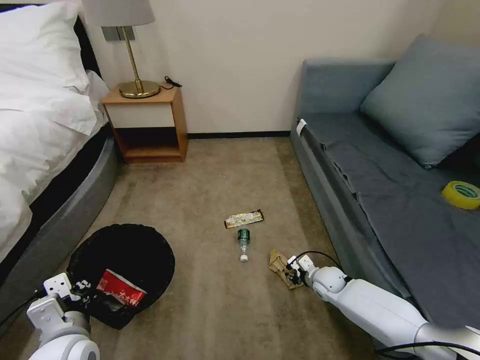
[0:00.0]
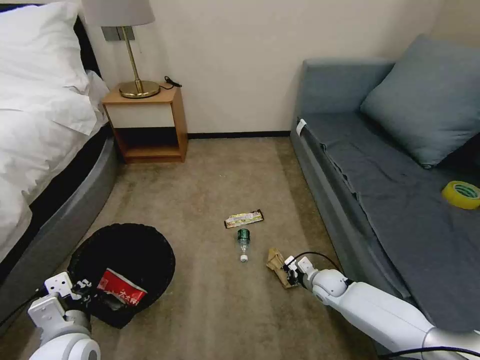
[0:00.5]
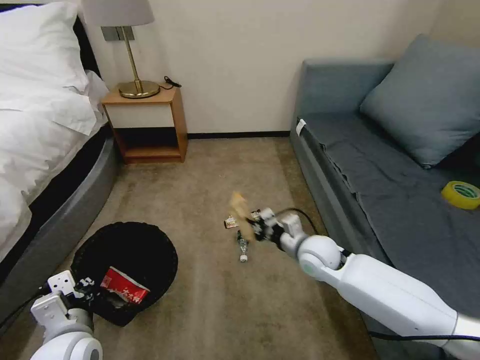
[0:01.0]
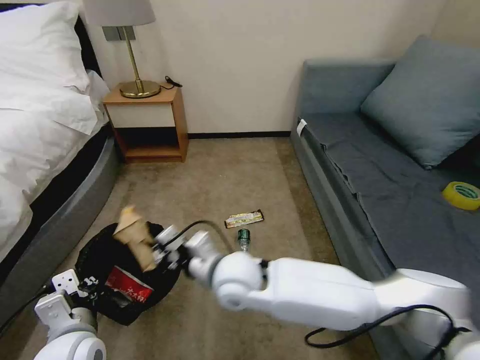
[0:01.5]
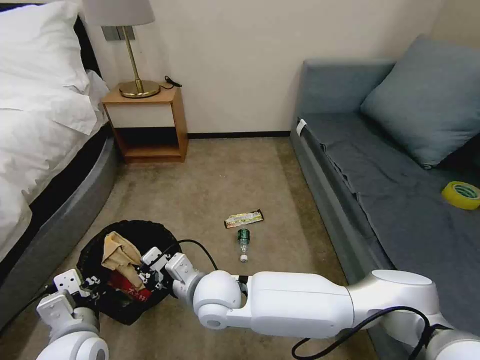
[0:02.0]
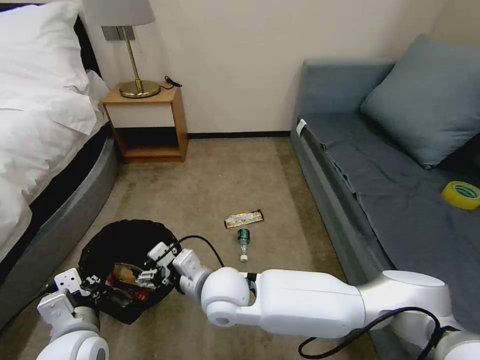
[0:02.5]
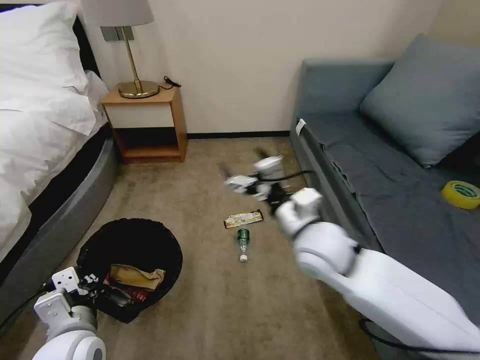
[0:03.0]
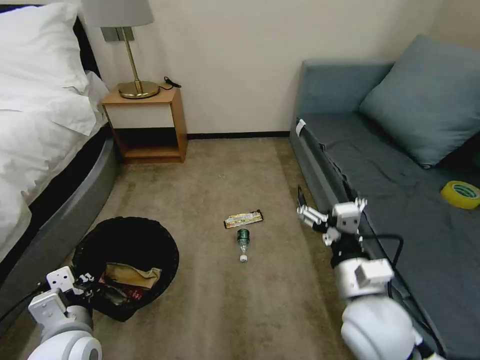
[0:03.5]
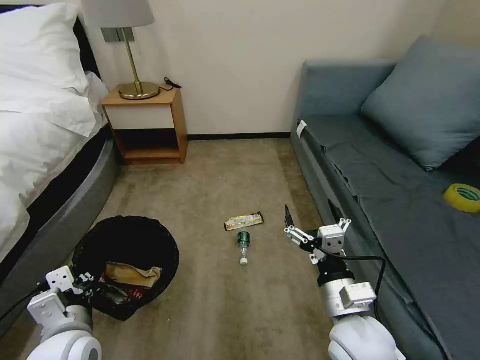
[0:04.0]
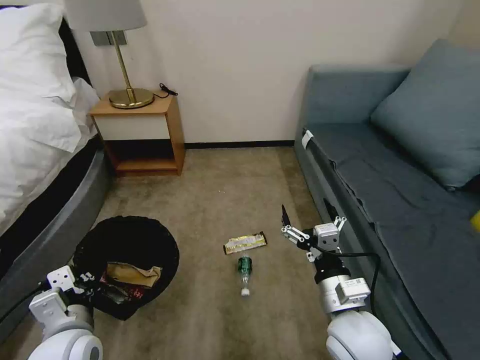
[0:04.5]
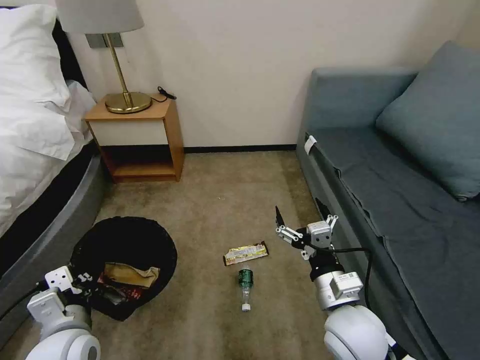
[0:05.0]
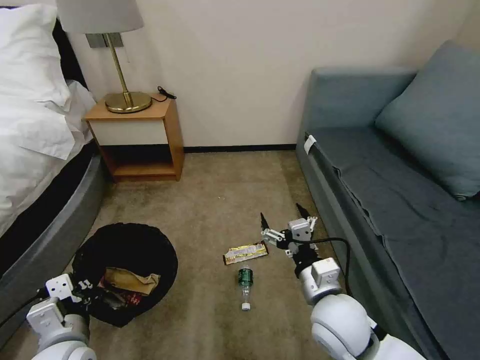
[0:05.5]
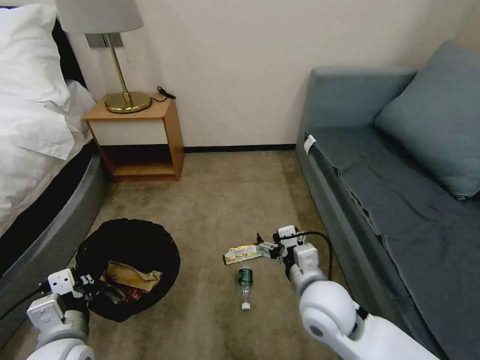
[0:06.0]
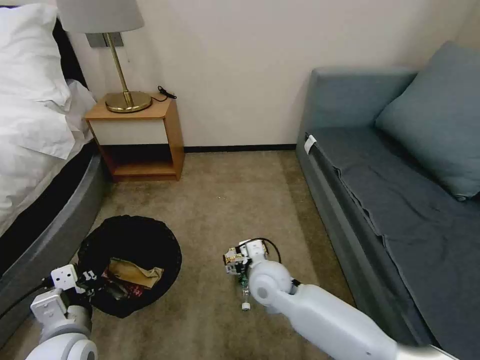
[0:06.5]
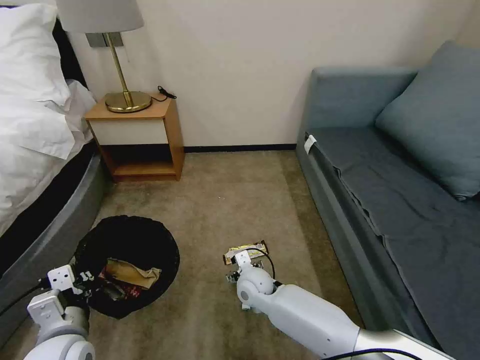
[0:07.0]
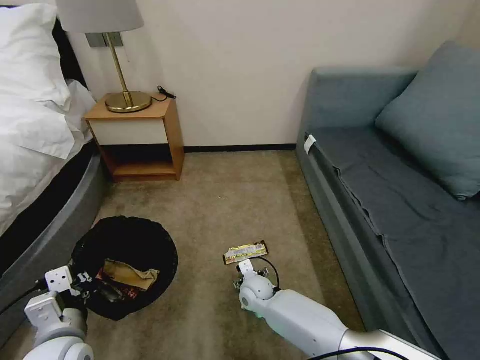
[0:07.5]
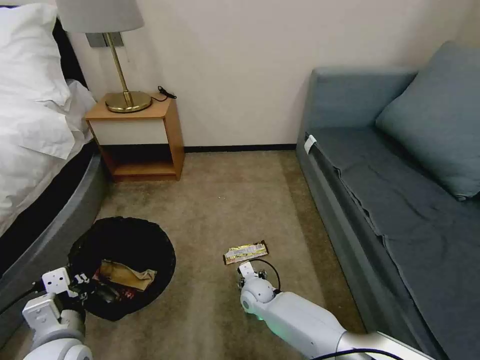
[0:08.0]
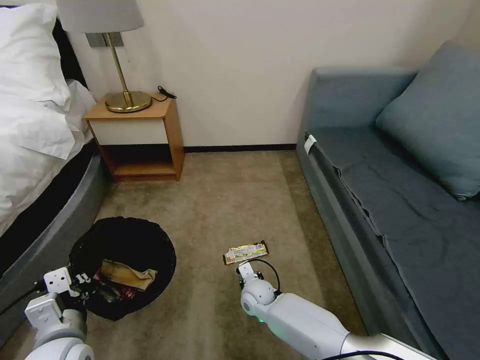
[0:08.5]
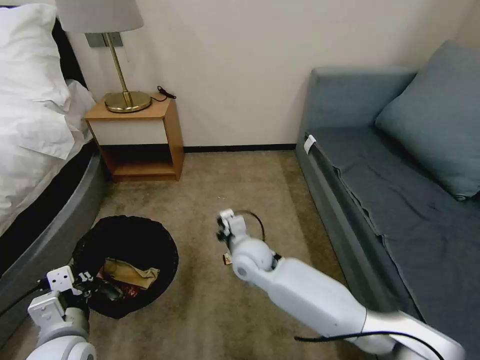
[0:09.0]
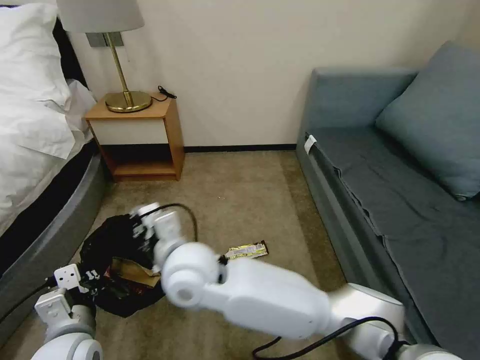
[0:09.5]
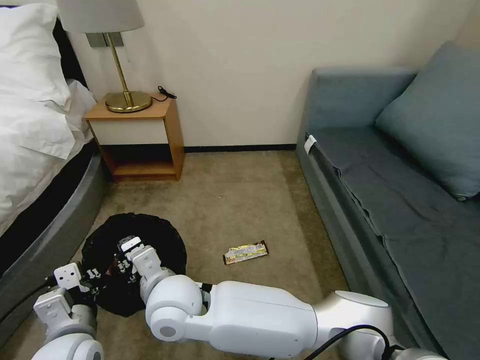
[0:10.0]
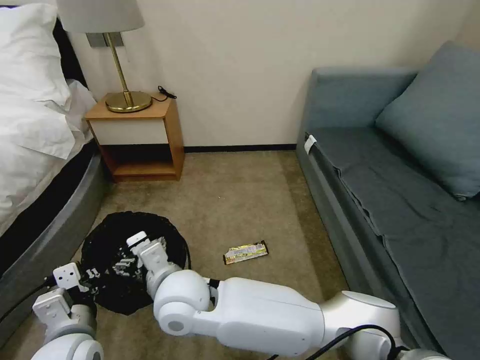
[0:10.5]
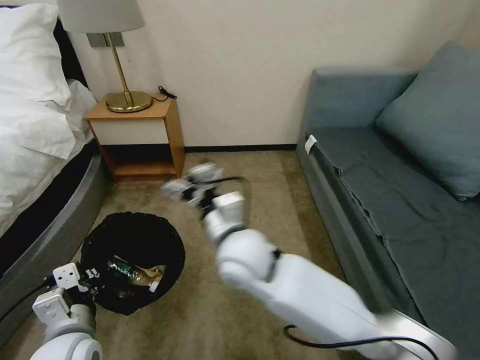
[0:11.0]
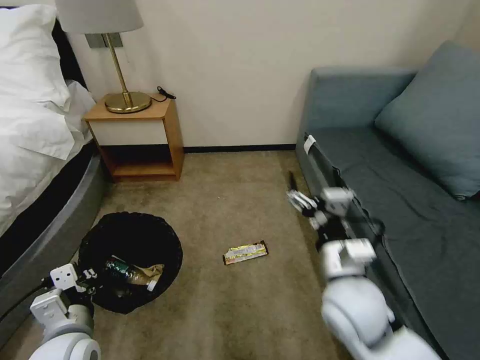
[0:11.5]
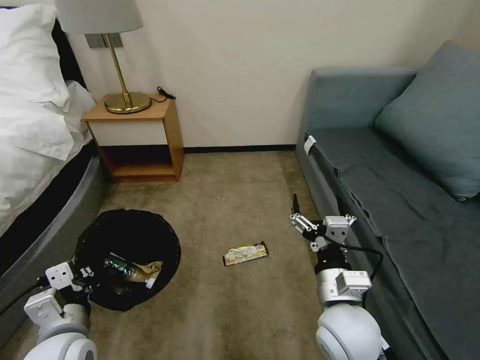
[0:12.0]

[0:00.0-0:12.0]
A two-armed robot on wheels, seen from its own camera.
Task of the whole recording: Pick up the trash bin, then pick up the garbage on the floor and place it into the trash bin.
0:00.0 to 0:02.0: The right gripper moves to the left and upward, roughly 40 cm.
0:02.0 to 0:04.0: The right gripper is displaced to the right by roughly 25 cm, and opens.
0:04.0 to 0:06.0: The right gripper is displaced forward by approximately 5 cm.
0:06.0 to 0:08.0: The right gripper shifts roughly 30 cm downward, forward and to the left.
0:08.0 to 0:10.0: The right gripper is displaced upward, to the left and backward by approximately 35 cm, and closes its fingers.
0:10.0 to 0:12.0: The right gripper is displaced to the right by about 30 cm, and opens up.

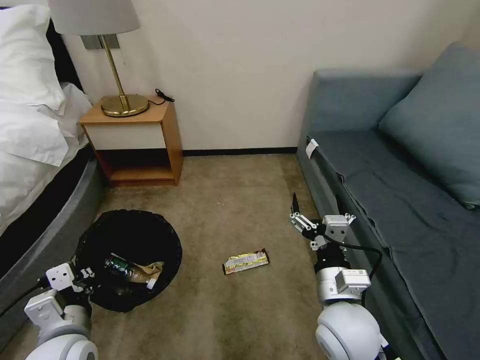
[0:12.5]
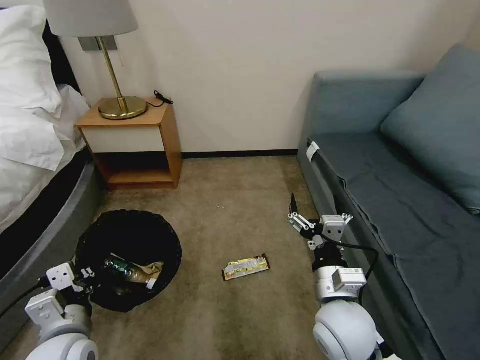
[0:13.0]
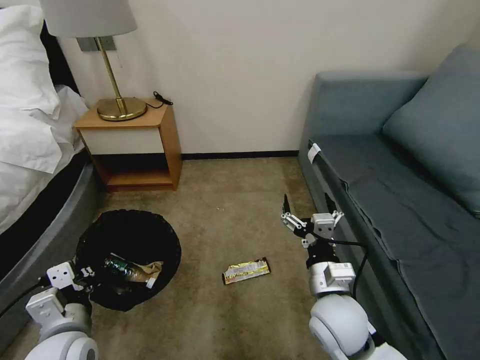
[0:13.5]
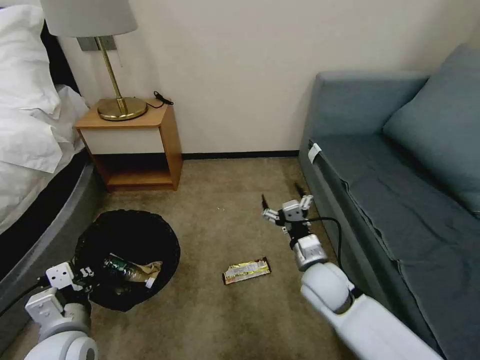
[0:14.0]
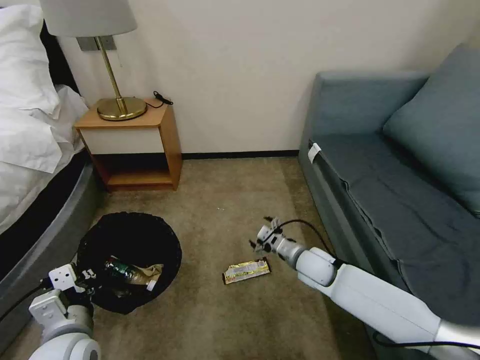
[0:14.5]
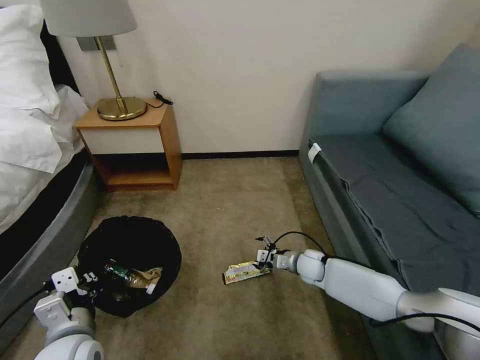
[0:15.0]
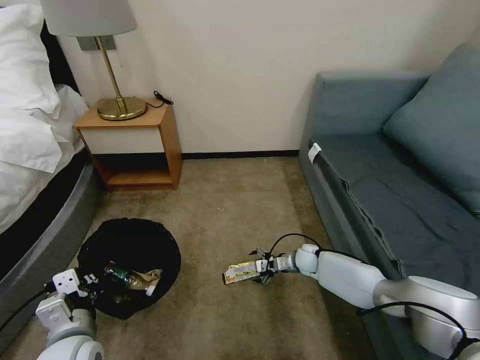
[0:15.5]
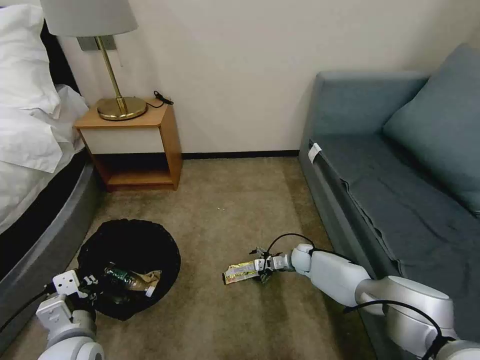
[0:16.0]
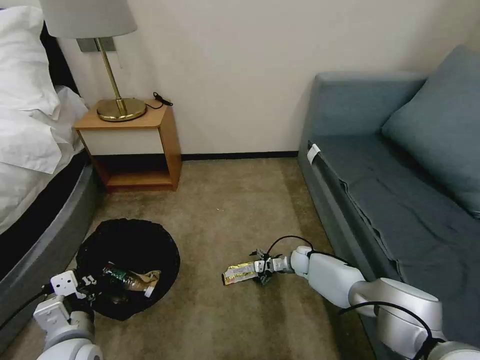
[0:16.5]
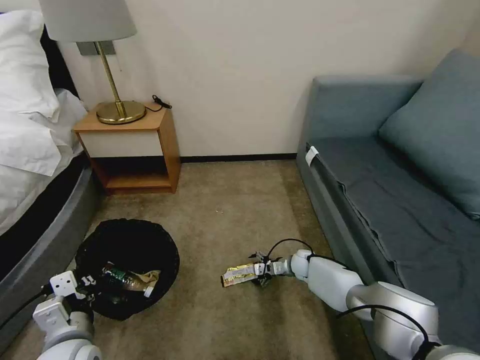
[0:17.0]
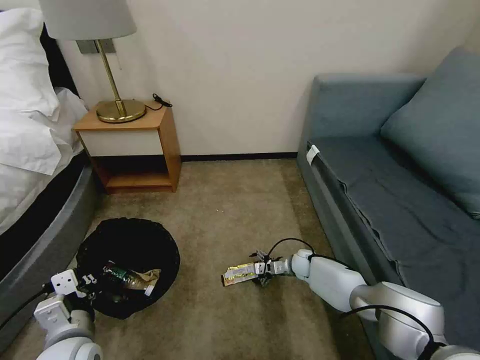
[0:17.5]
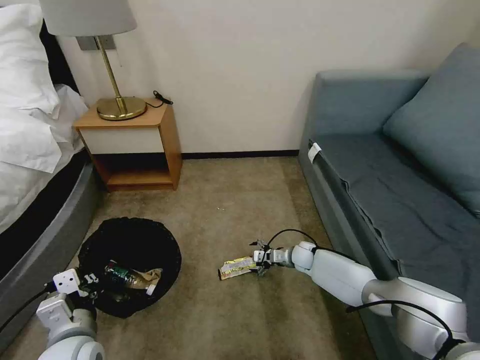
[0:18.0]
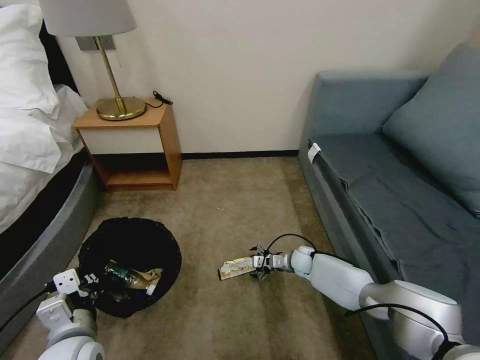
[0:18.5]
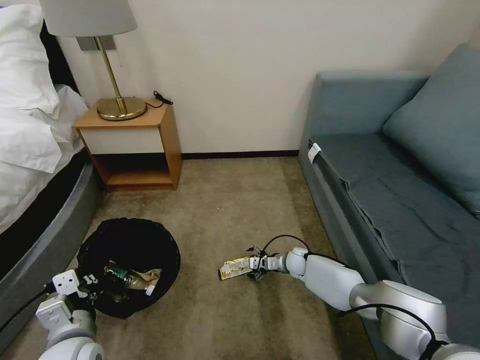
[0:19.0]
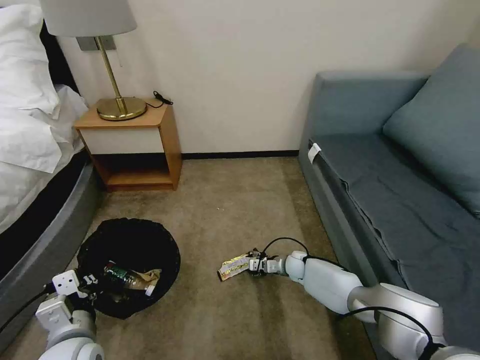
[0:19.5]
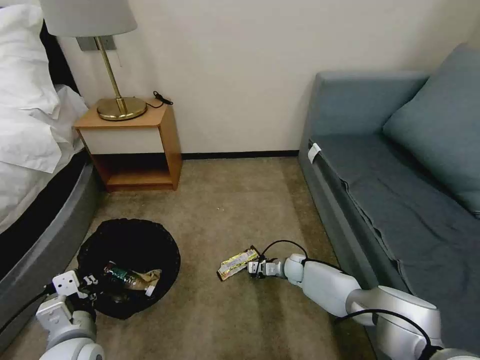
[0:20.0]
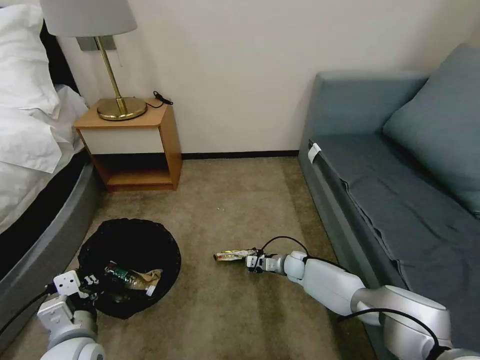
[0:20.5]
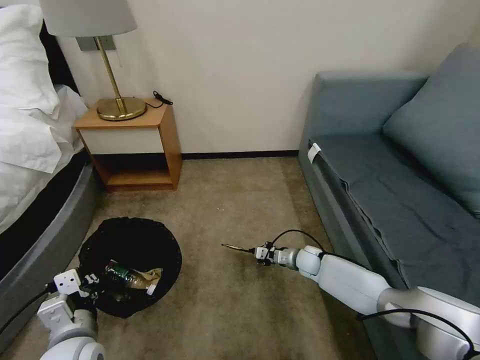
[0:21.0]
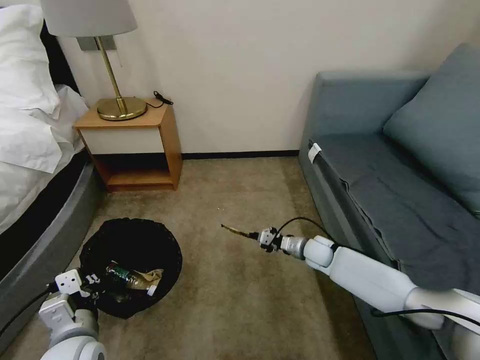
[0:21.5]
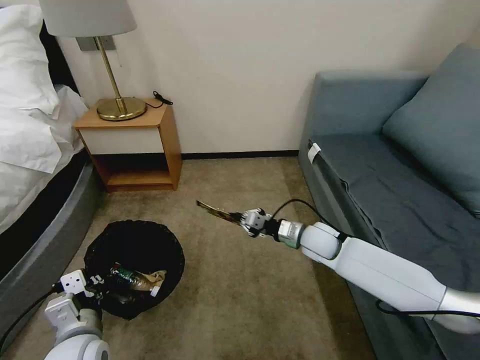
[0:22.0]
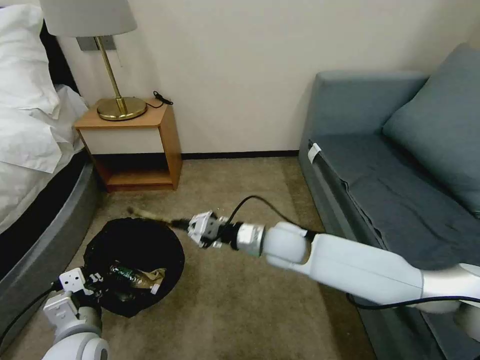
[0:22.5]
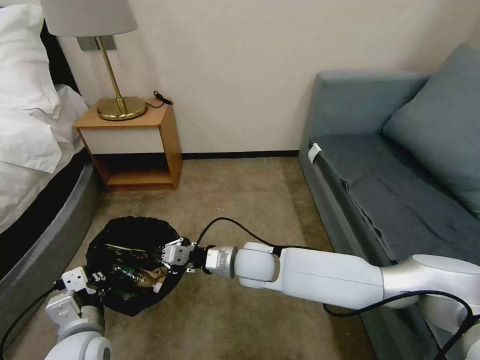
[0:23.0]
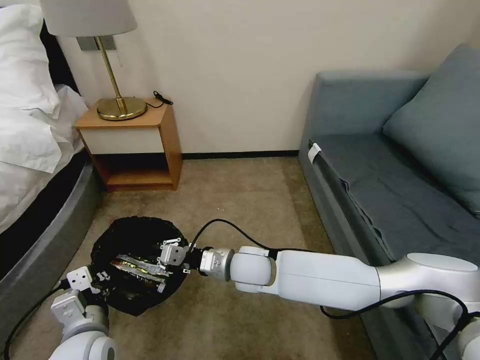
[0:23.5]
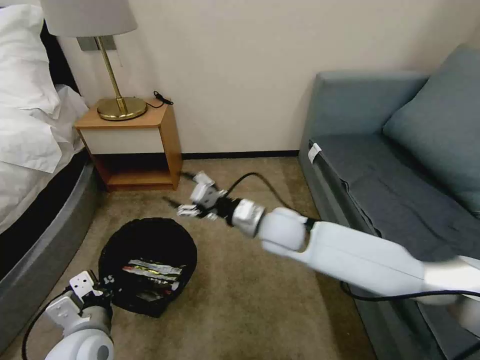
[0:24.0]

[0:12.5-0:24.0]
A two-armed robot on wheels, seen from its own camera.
Task of the whole recording: Pick up the trash bin, then pick up the garbage on the floor and place it into the trash bin.
0:12.5 to 0:14.5: The right gripper goes about 20 cm forward and downward.
0:14.5 to 0:16.5: The right gripper heads downward and forward, covering some 20 cm.
0:16.5 to 0:18.5: The grippers stay close to where they were, moving slightly.
0:18.5 to 0:20.0: The right gripper closes up.
0:20.0 to 0:22.0: The right gripper heads upward, covering some 20 cm.
0:22.0 to 0:24.0: The right gripper shifts roughly 15 cm to the left and upward, and opens up.

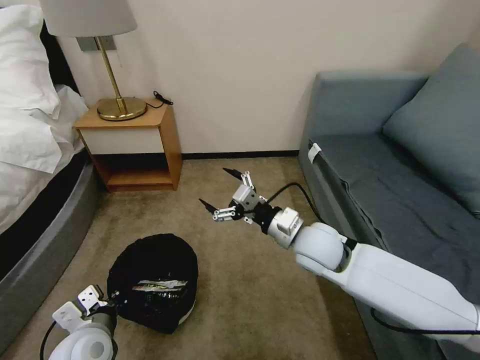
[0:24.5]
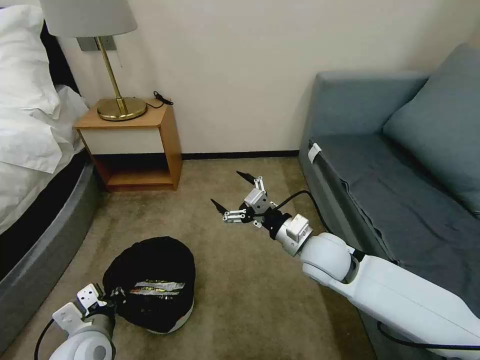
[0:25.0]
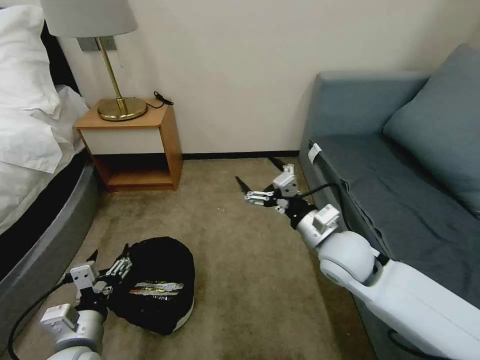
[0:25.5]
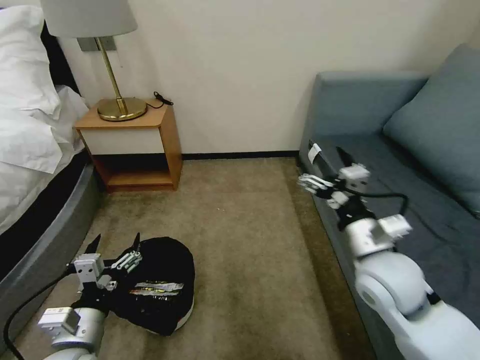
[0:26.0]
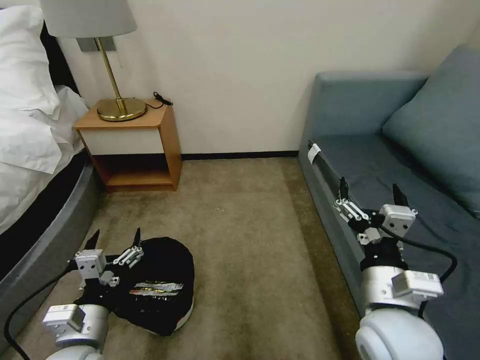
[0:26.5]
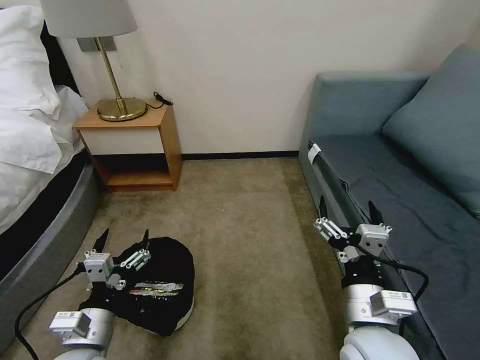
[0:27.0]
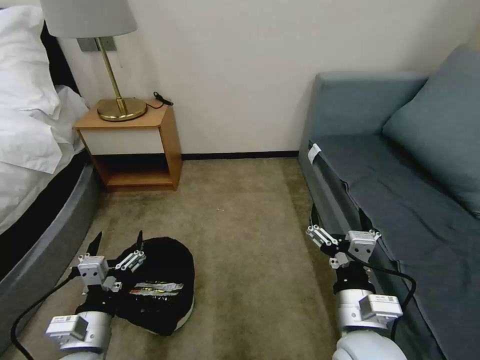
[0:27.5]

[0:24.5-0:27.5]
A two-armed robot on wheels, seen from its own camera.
Task of the whole recording: Pick up the trash bin, then pick up the garbage on the floor and place it into the trash bin.
0:24.5 to 0:26.0: The left gripper opens, while the right gripper is displaced to the right and backward by roughly 10 cm.
0:26.0 to 0:27.5: The right gripper travels backward, to the left and downward by approximately 15 cm.
